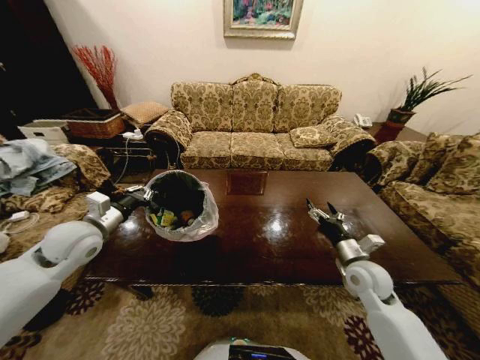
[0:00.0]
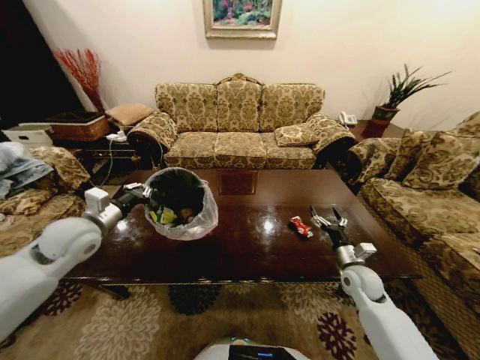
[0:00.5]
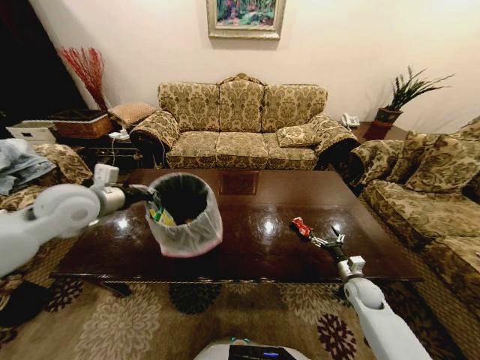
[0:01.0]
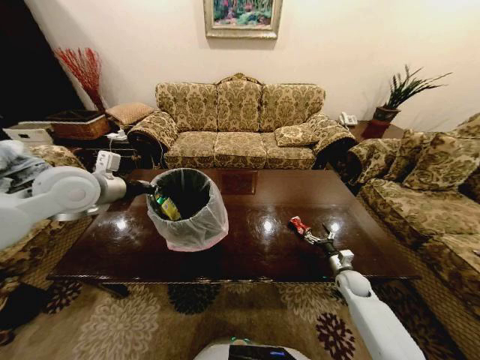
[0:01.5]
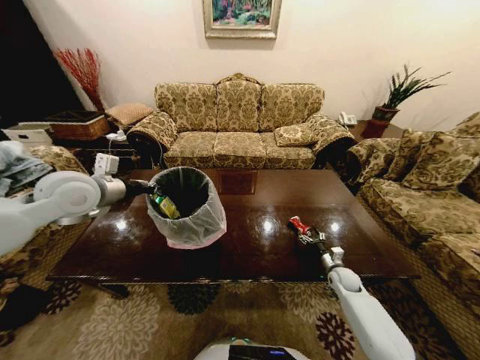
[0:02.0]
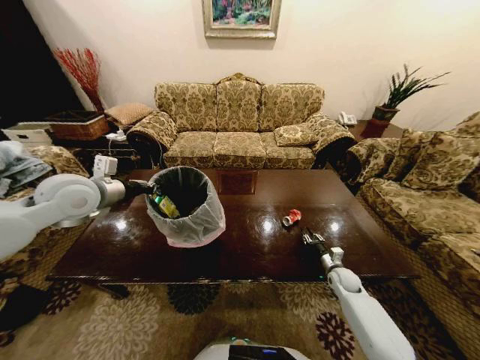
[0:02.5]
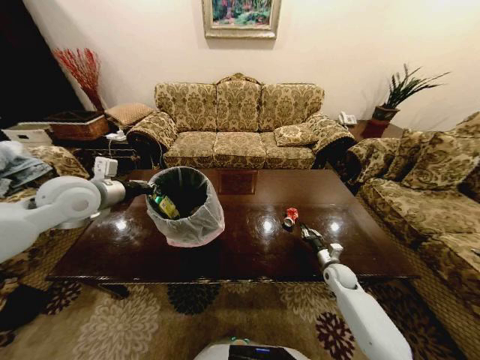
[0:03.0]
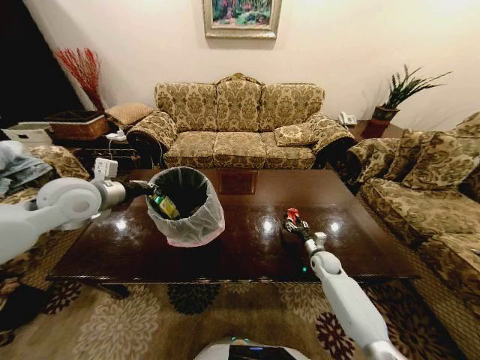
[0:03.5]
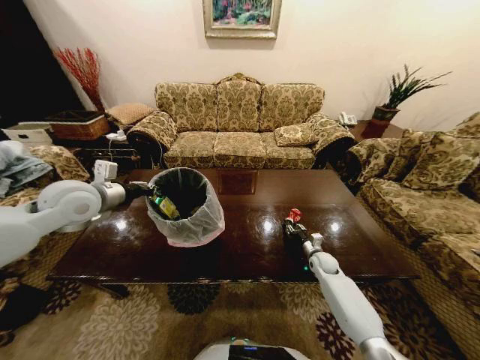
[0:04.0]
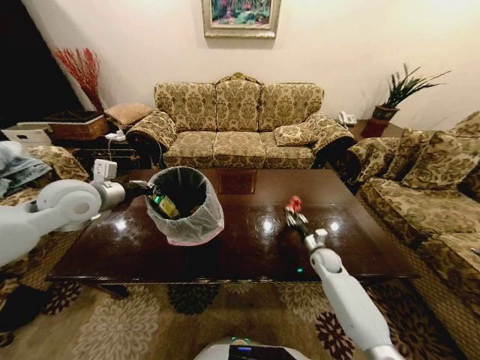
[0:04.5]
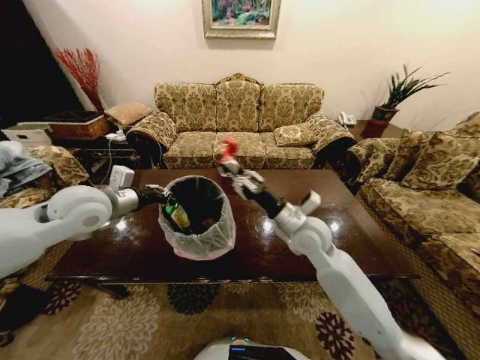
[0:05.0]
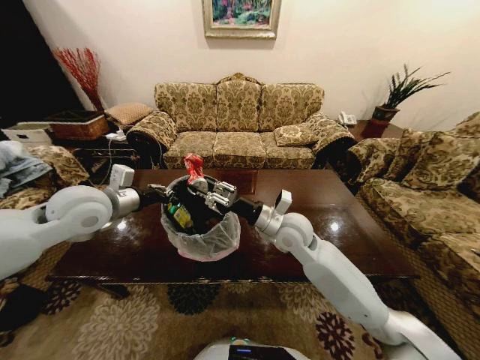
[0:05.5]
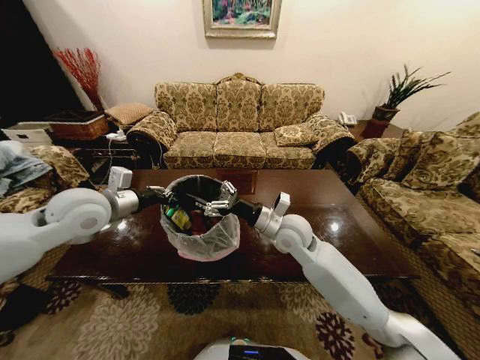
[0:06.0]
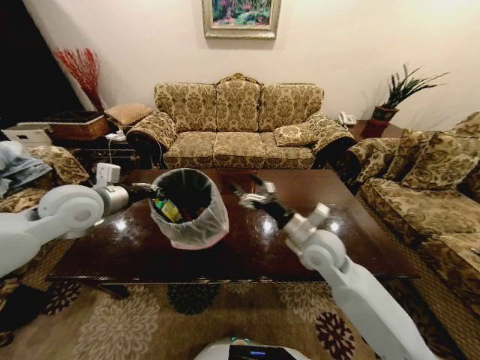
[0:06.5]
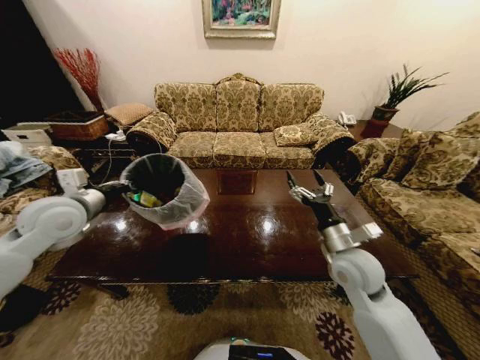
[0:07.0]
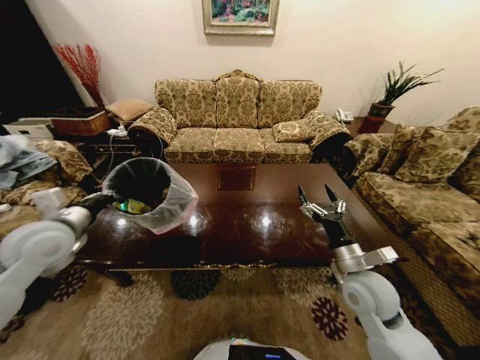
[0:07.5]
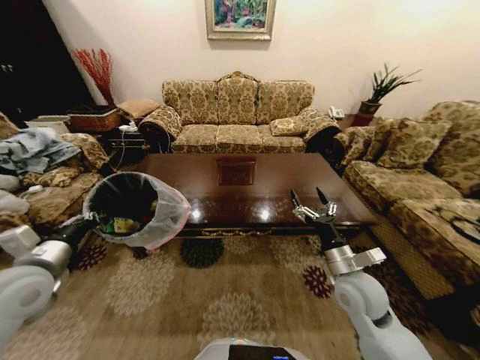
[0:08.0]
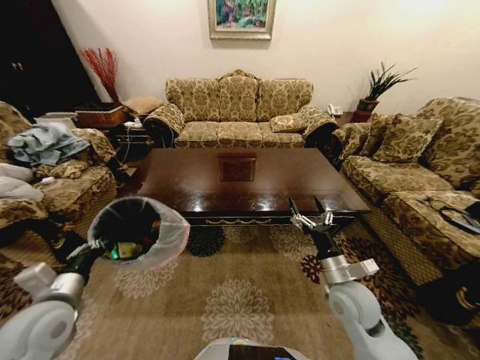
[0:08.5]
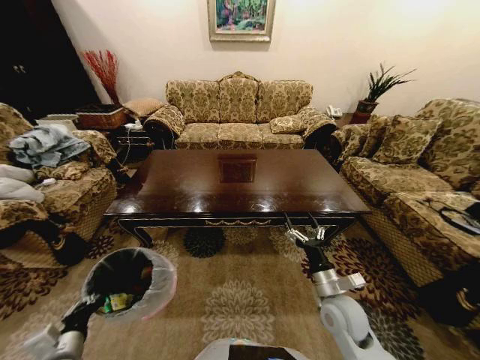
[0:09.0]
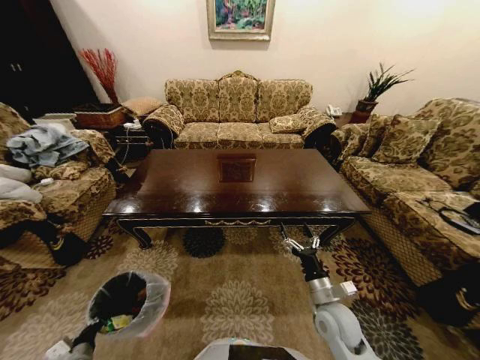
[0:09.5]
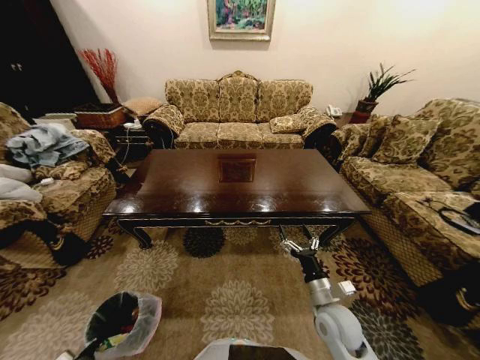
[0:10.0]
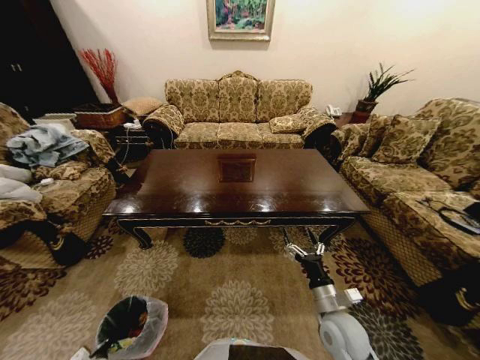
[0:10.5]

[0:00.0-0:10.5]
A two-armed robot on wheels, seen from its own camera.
Task of the whole recording: Move to the front of the table and place the trash on the table into the trash bin.
0:00.0 to 0:02.0: The right gripper shifts about 20 cm downward; the left gripper moves upward, approximately 10 cm.
0:02.0 to 0:04.0: The right gripper heads to the left and forward, covering about 10 cm, and closes.
0:04.0 to 0:06.5: The right gripper goes approximately 30 cm upward and to the left, and opens its fingers.
0:06.5 to 0:08.5: The right gripper is displaced backward, downward and to the right by approximately 15 cm. The left gripper goes about 25 cm backward and downward.
0:08.5 to 0:10.5: The right gripper is displaced downward by approximately 5 cm, while the left gripper moves downward, approximately 40 cm.

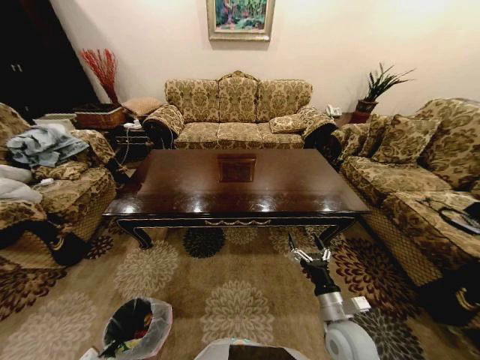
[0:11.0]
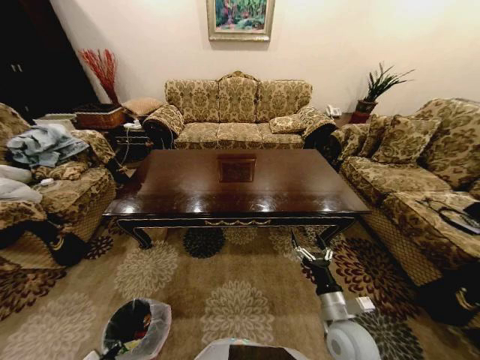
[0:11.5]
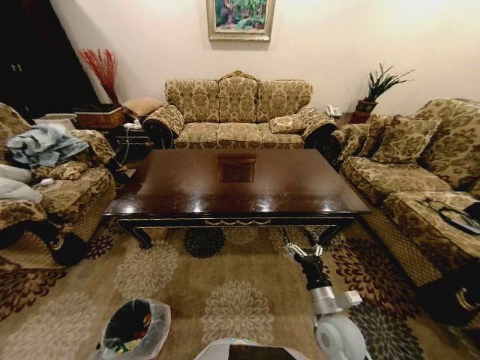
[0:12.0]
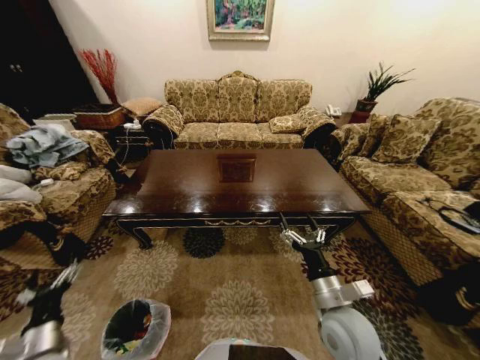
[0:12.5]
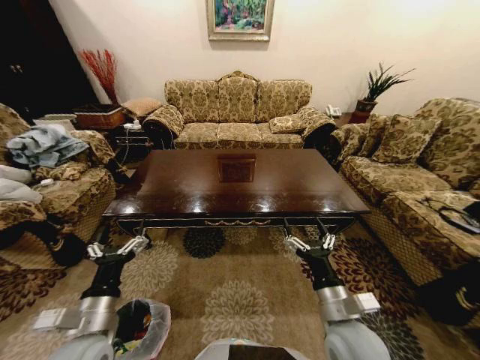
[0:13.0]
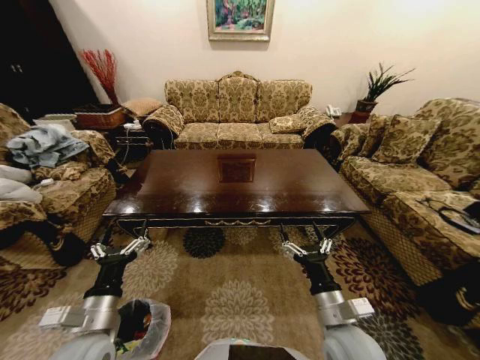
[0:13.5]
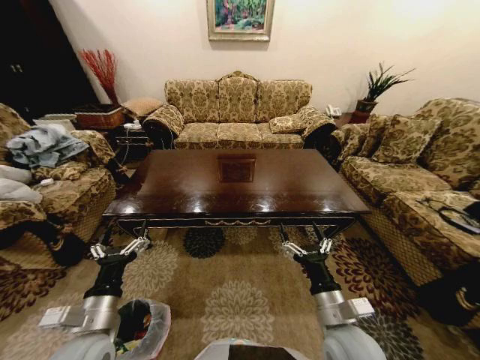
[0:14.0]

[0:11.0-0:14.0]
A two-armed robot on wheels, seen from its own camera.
Task of the whole recording: Move to the front of the table and place the trash on the table into the trash bin.
0:11.0 to 0:12.5: The left gripper travels upward by some 30 cm, and opens its fingers; the right gripper goes about 10 cm upward.
0:12.5 to 0:14.0: The left gripper travels to the right and upward by about 15 cm.
